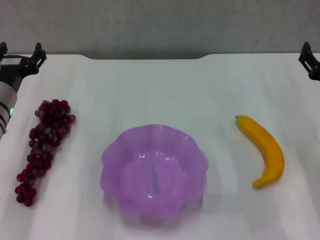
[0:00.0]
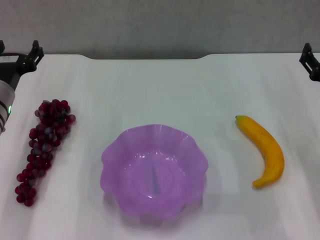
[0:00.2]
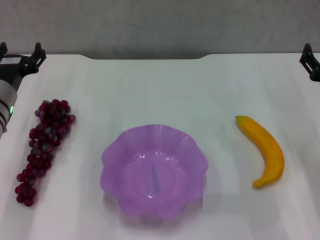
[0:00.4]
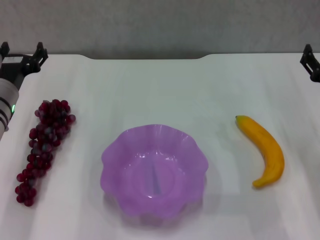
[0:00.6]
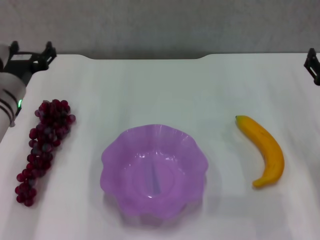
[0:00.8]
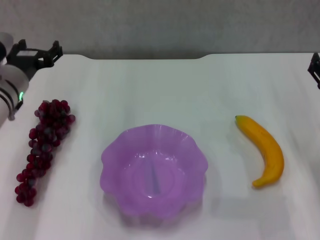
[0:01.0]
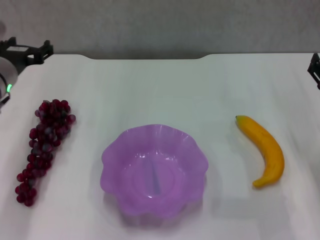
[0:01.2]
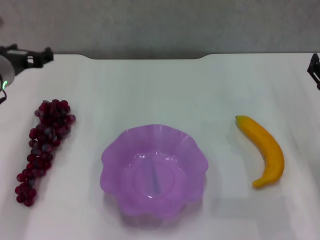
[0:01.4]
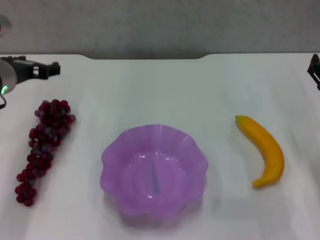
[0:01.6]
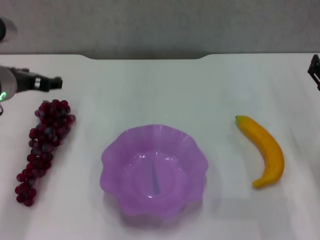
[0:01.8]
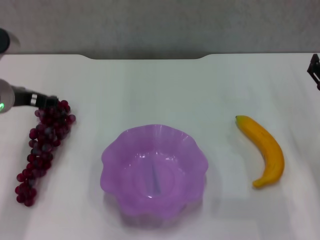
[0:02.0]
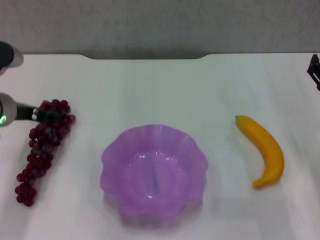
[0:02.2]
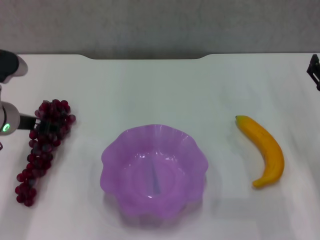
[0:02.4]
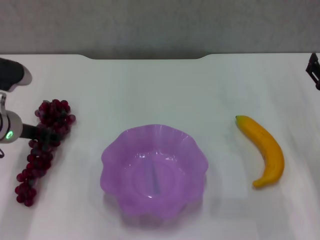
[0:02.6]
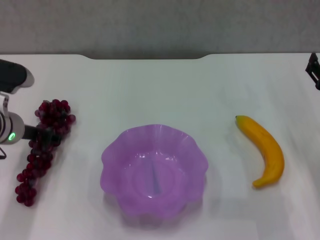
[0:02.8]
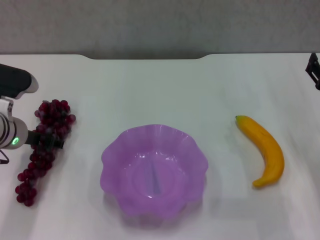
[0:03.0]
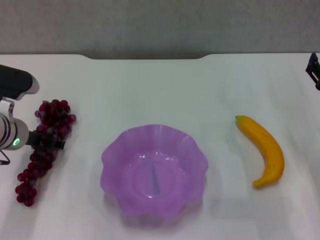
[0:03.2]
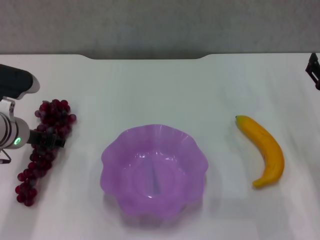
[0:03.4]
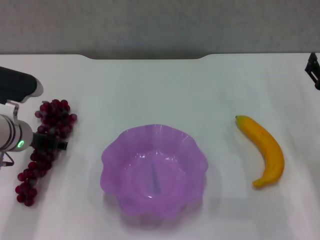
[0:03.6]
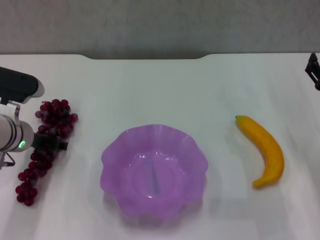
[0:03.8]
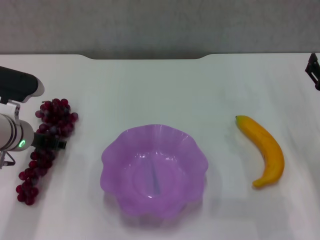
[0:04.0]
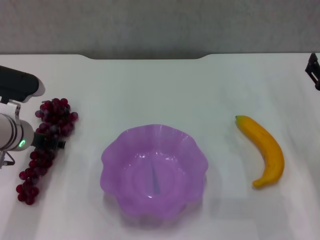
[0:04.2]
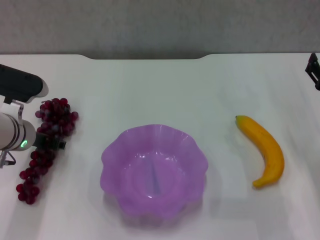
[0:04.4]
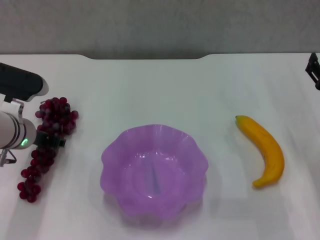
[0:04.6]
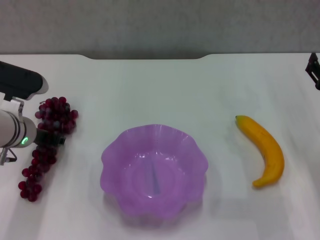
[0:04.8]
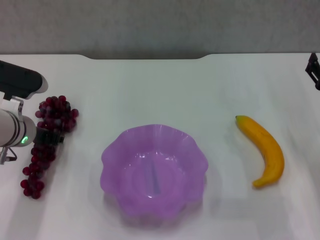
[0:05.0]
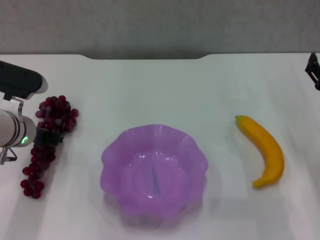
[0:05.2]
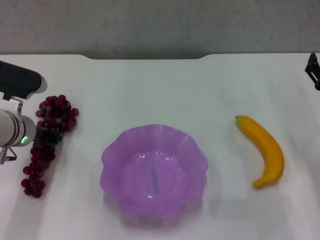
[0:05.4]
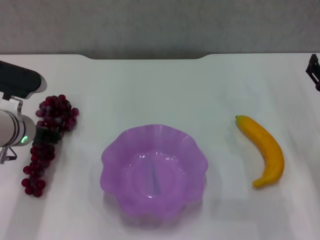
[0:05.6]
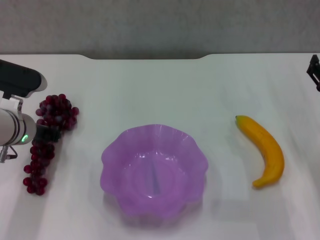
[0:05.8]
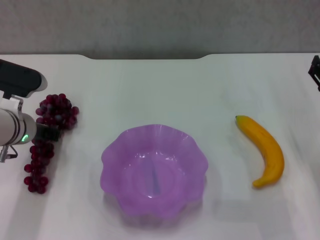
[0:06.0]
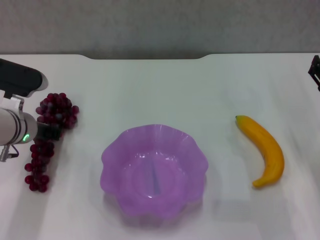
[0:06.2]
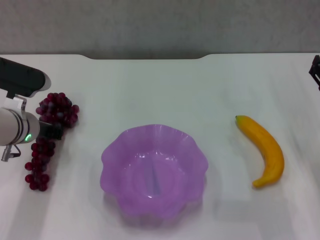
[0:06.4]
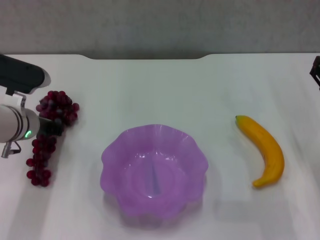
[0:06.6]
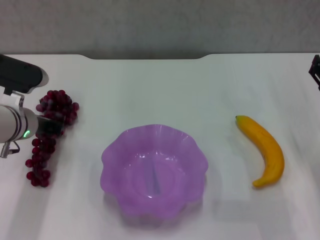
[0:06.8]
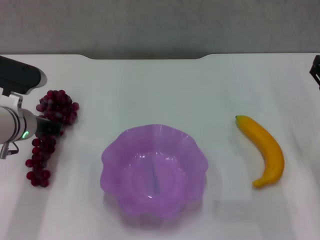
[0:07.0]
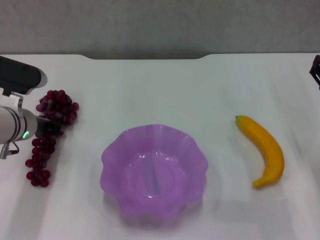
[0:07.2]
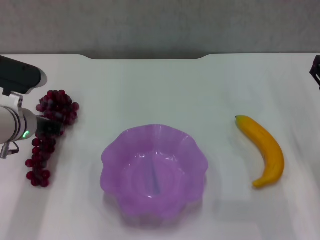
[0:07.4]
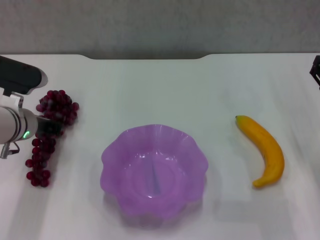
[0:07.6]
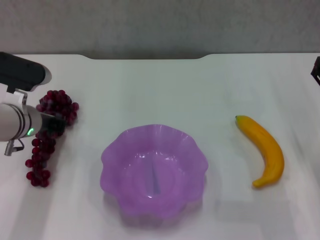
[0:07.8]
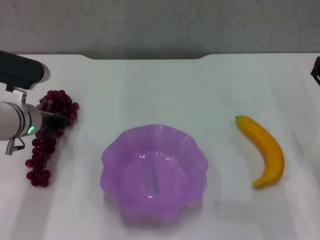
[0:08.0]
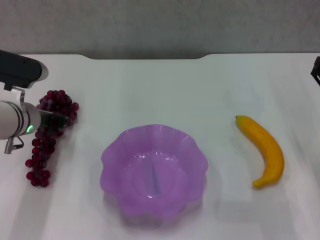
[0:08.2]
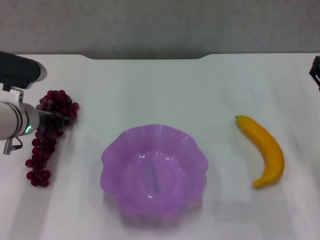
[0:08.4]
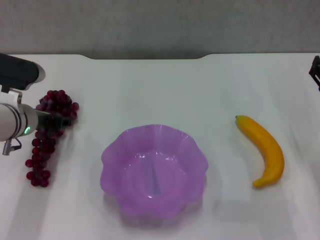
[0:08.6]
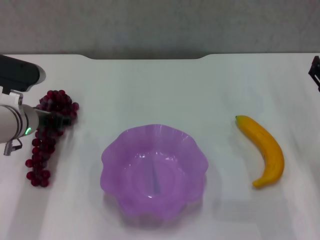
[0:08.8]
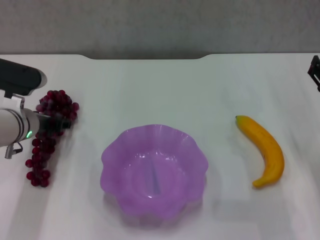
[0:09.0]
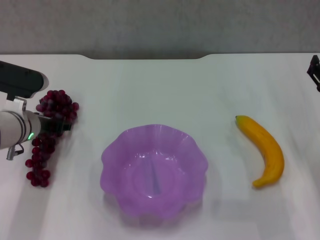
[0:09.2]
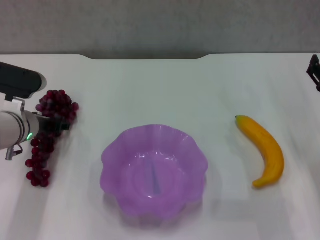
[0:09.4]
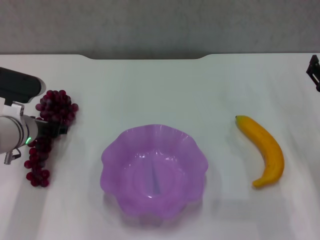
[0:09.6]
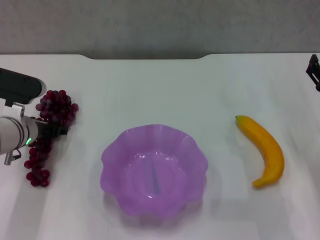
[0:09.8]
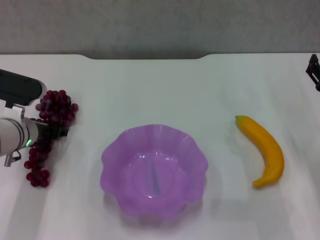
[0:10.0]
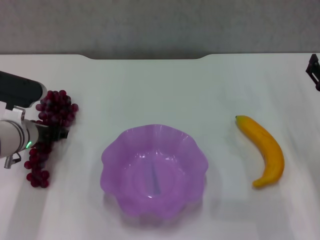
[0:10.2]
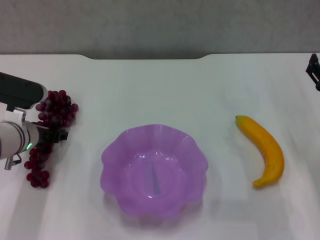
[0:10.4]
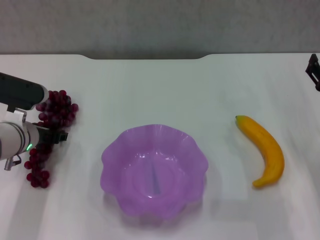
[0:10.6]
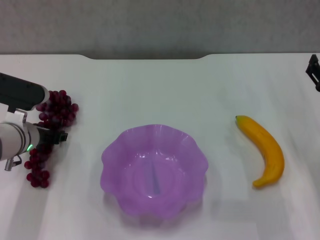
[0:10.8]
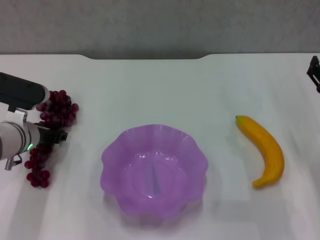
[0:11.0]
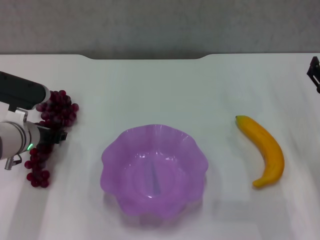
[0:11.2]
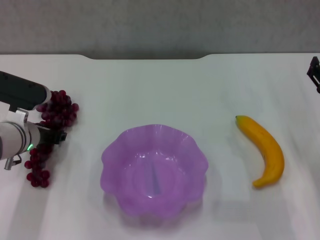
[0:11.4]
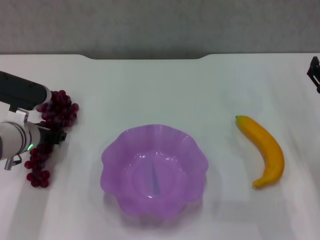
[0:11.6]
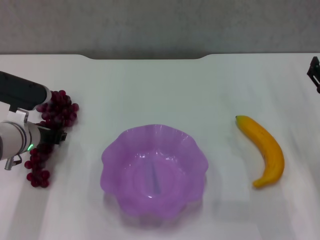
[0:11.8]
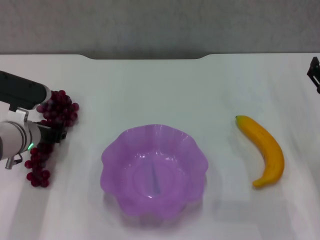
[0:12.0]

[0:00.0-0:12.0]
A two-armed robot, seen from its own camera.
0:00.0 to 0:01.6: The left gripper moves upward, some 5 cm.
0:01.6 to 0:03.0: The left gripper travels downward by approximately 5 cm.
0:03.0 to 0:04.4: The grippers move only a little.
0:04.4 to 0:06.0: The left gripper closes up.
0:06.0 to 0:07.6: The left gripper closes up.
0:07.6 to 0:09.0: The left gripper opens.
0:09.0 to 0:10.4: The grippers make only small movements.
0:10.4 to 0:12.0: The two grippers keep their place.

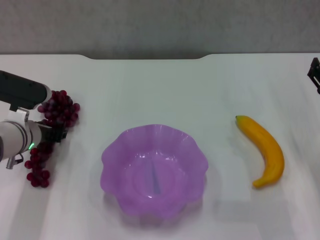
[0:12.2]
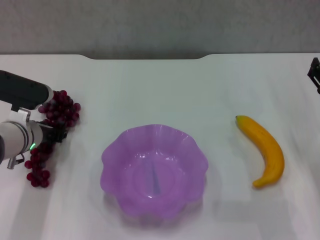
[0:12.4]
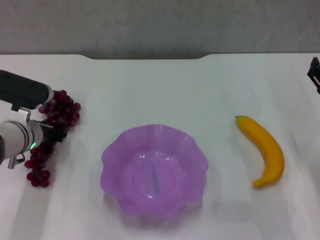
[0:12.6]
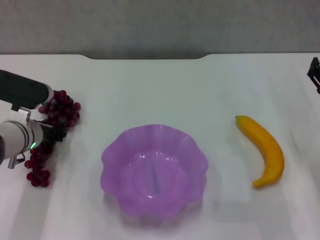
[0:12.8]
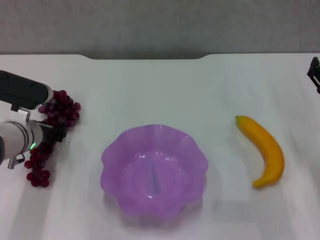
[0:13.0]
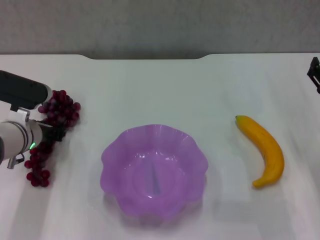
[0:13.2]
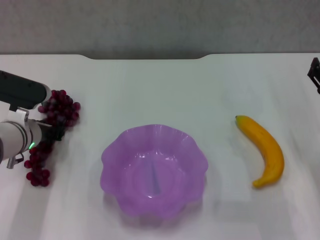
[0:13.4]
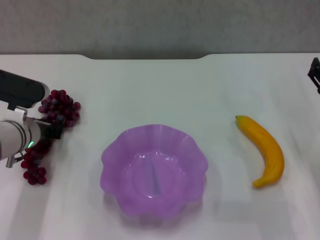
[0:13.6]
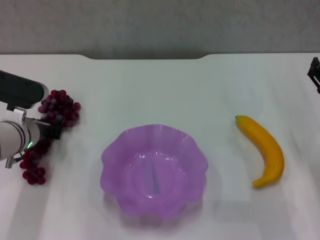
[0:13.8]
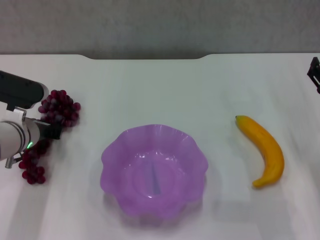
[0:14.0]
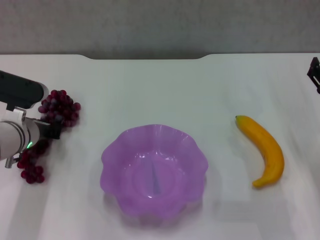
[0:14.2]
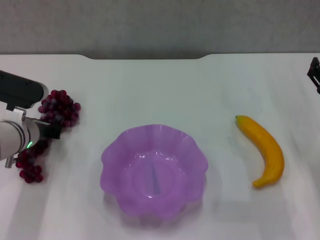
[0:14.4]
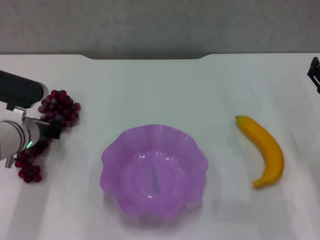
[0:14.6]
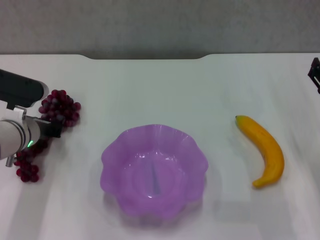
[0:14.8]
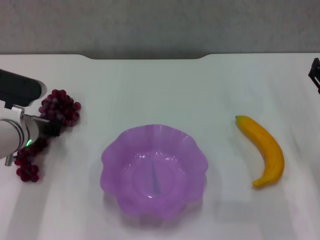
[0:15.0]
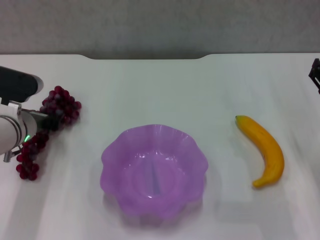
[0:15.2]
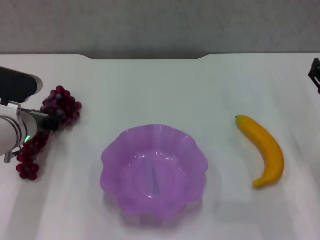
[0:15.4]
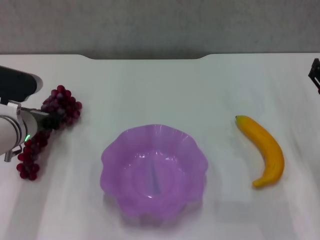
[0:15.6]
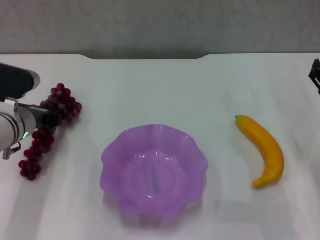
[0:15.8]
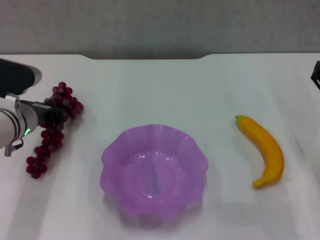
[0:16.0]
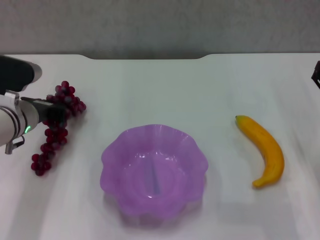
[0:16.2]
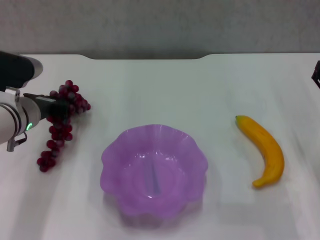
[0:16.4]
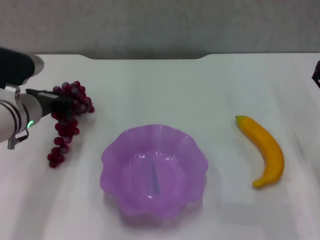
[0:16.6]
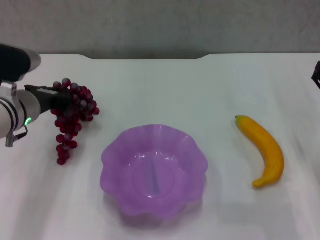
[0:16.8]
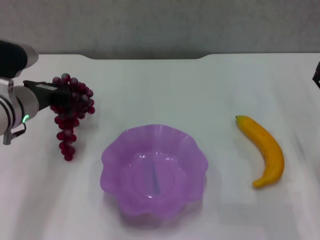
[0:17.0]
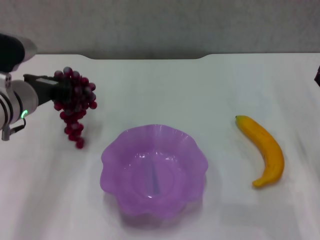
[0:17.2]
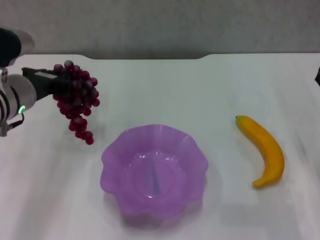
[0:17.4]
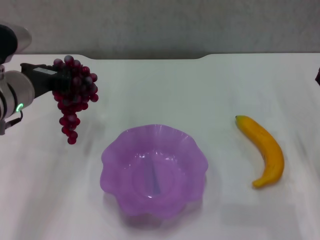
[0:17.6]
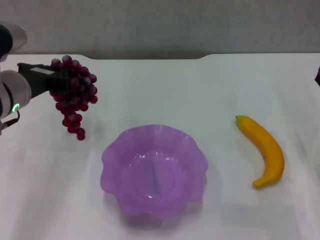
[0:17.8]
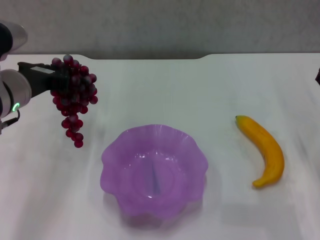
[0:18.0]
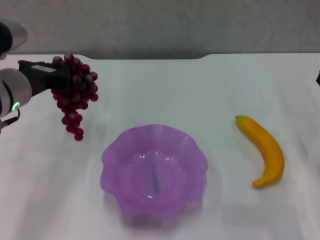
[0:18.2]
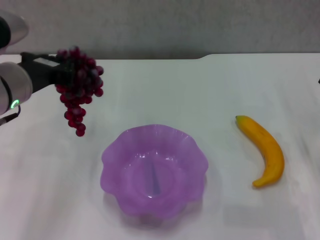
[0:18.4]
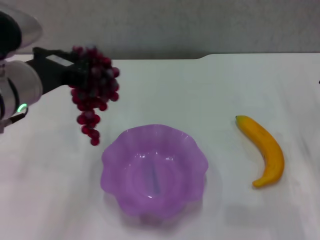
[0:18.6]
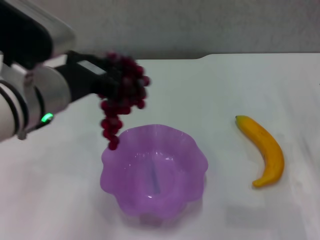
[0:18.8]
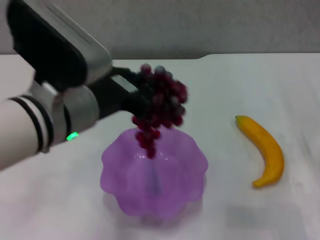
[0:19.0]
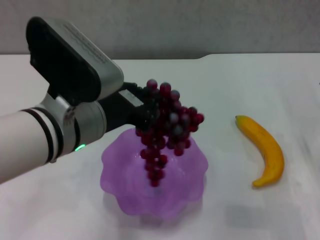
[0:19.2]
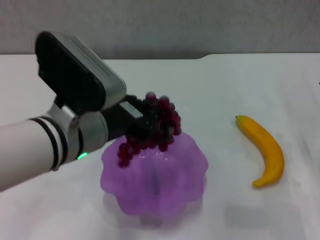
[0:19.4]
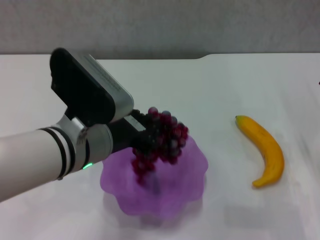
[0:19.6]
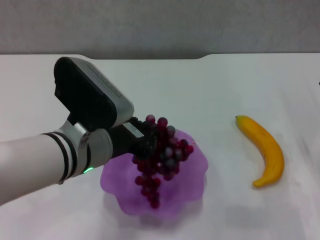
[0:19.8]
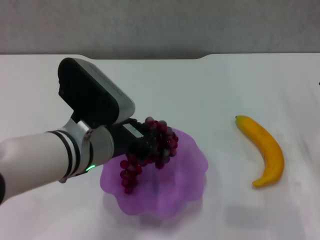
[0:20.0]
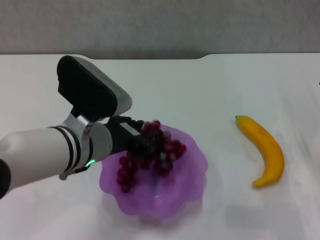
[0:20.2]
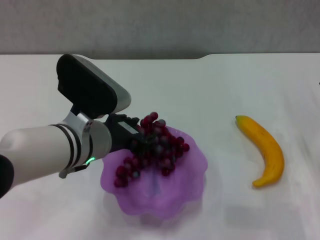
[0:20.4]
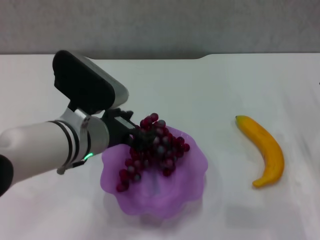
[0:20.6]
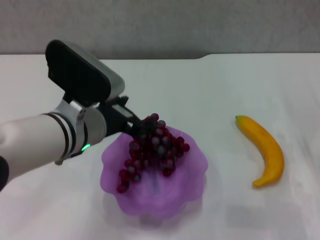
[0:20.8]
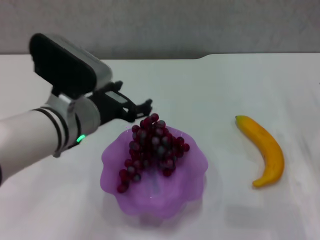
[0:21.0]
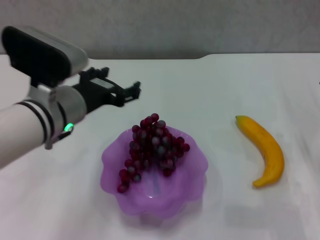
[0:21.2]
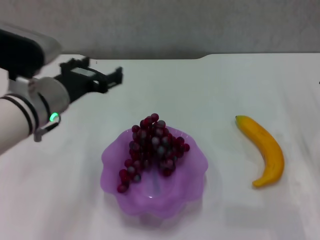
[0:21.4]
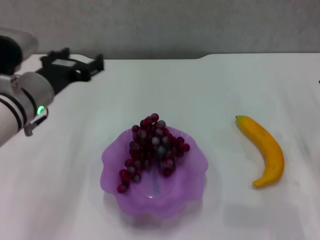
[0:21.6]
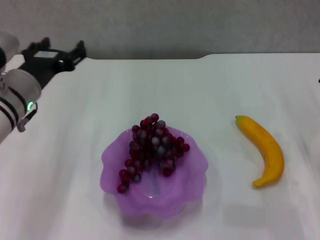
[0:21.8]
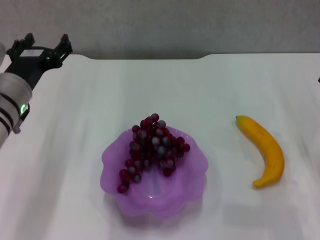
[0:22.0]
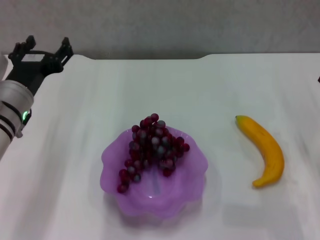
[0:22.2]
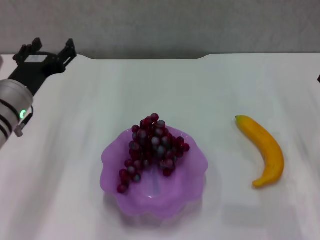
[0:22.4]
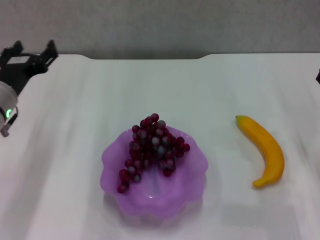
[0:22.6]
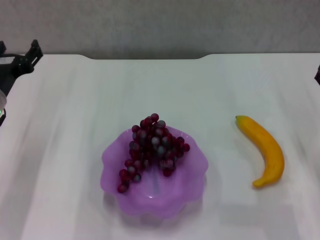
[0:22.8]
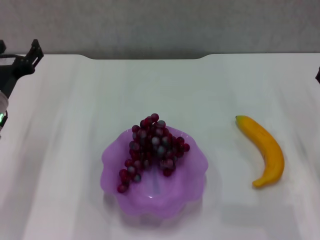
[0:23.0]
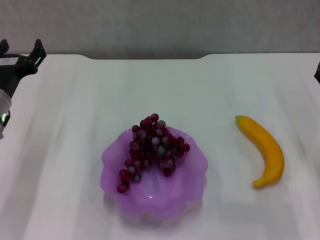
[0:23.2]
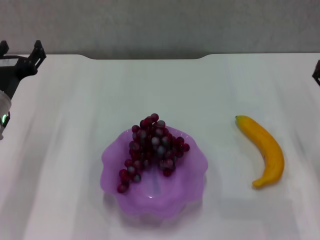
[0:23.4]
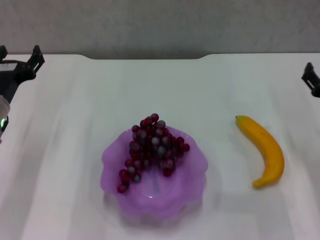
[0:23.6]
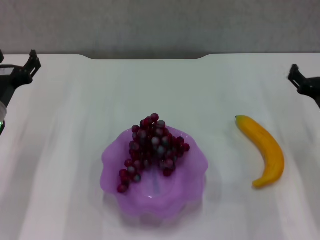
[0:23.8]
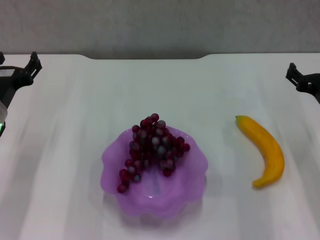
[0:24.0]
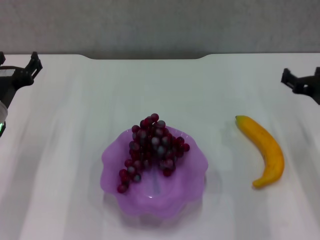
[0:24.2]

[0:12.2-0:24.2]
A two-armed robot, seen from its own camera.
Step, 0:12.2 to 0:14.4: Grasp the grape with left gripper.
Step, 0:14.6 to 0:20.2: Place the grape in the purple plate with left gripper.
0:12.2 to 0:13.8: Neither gripper changes place.
0:13.8 to 0:15.2: Both grippers stay about where they are.
0:15.2 to 0:16.6: The left gripper changes place by some 5 cm.
0:16.6 to 0:18.2: The left gripper travels upward by approximately 5 cm.
0:18.2 to 0:19.8: The left gripper goes roughly 10 cm to the right and backward.
0:19.8 to 0:21.2: The left gripper ends up roughly 5 cm from where it was, and opens up.
0:21.2 to 0:22.6: The left gripper heads to the left and downward, covering some 10 cm.
0:22.6 to 0:24.2: The right gripper ends up some 5 cm from where it was.
